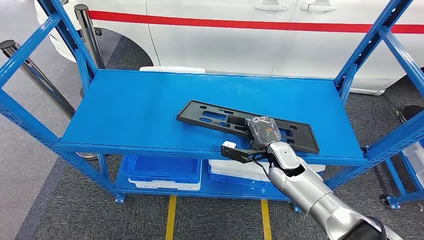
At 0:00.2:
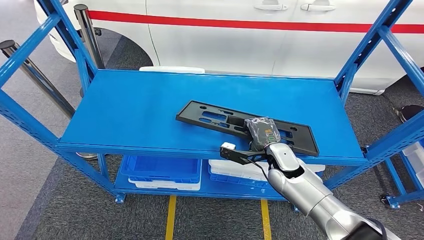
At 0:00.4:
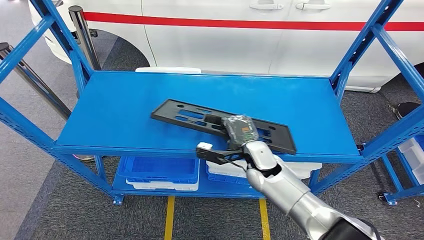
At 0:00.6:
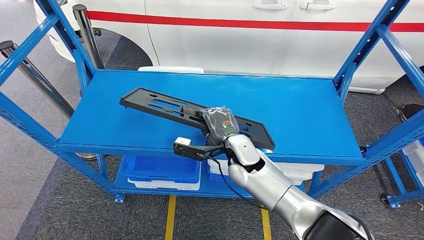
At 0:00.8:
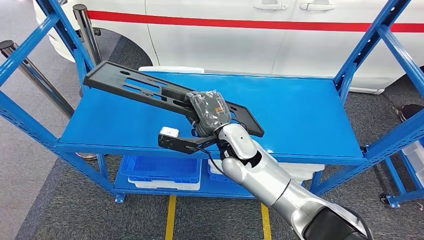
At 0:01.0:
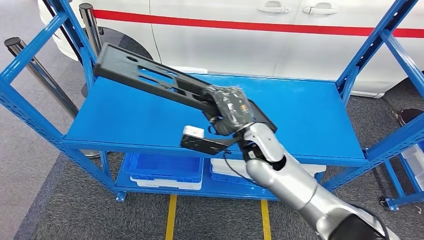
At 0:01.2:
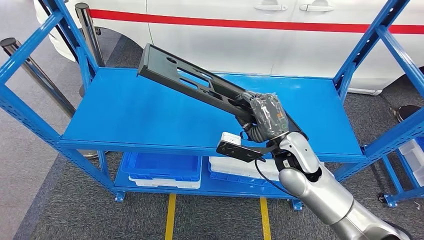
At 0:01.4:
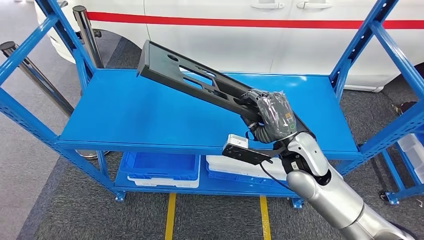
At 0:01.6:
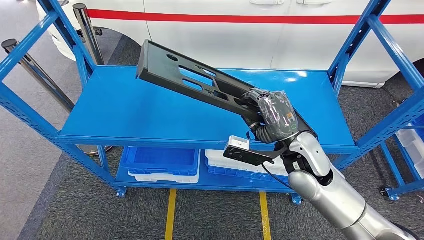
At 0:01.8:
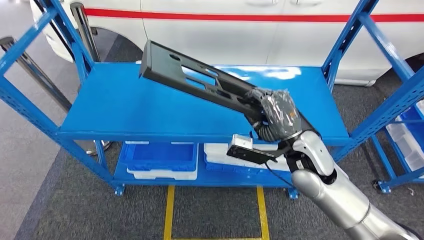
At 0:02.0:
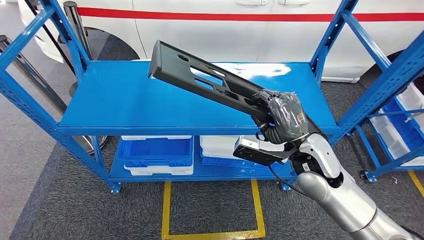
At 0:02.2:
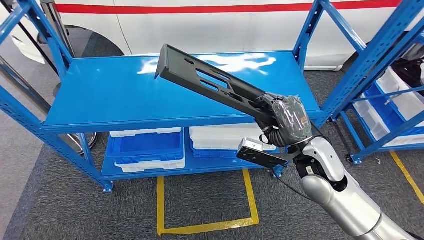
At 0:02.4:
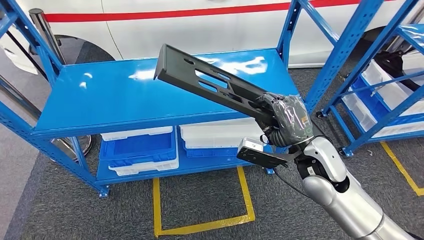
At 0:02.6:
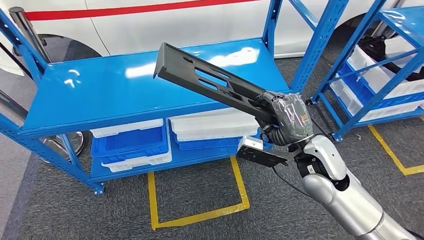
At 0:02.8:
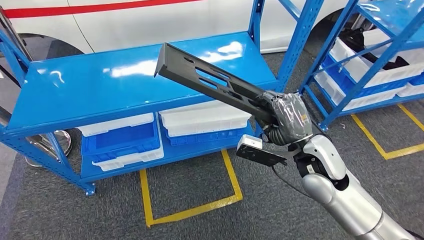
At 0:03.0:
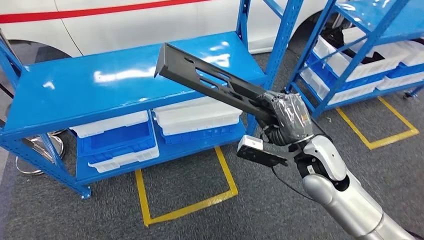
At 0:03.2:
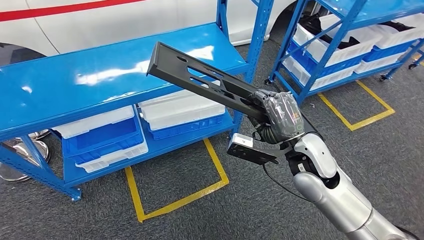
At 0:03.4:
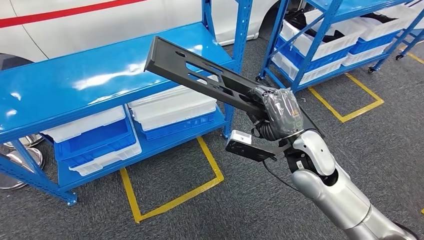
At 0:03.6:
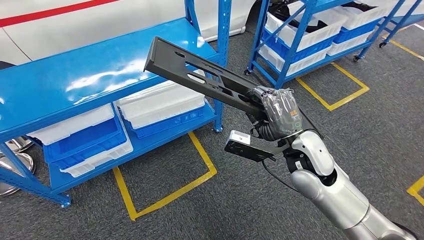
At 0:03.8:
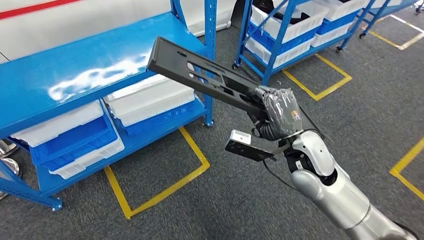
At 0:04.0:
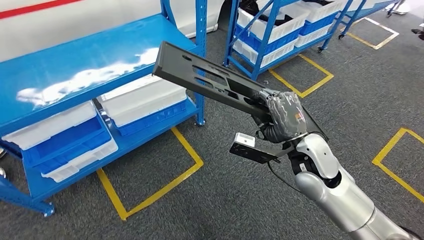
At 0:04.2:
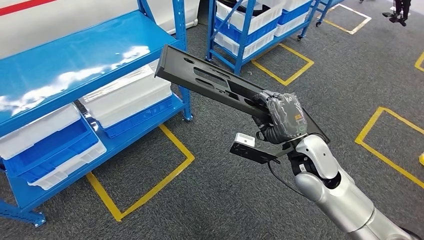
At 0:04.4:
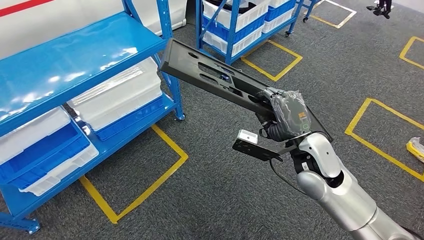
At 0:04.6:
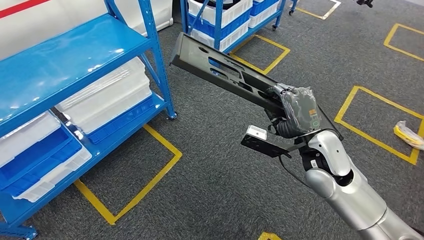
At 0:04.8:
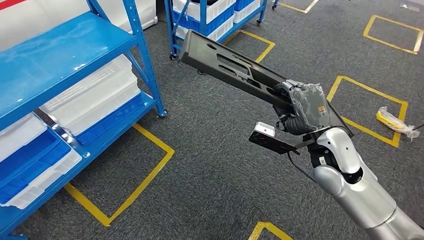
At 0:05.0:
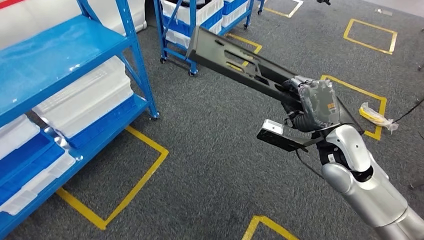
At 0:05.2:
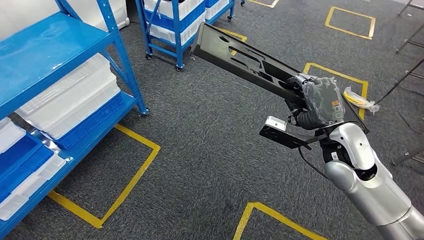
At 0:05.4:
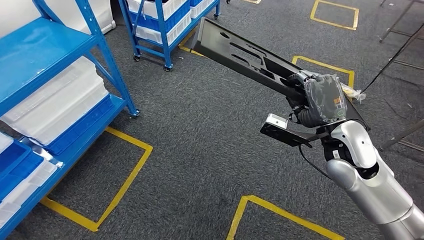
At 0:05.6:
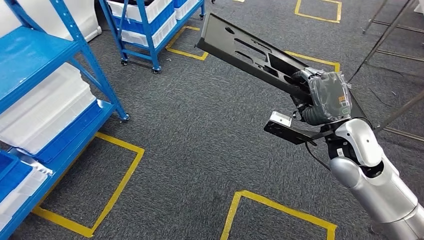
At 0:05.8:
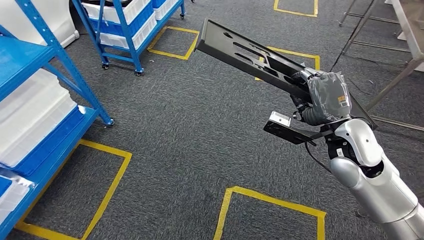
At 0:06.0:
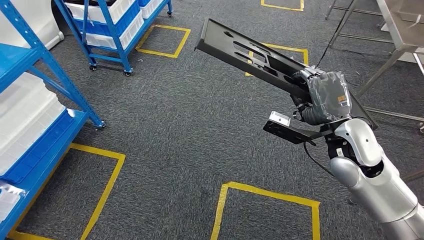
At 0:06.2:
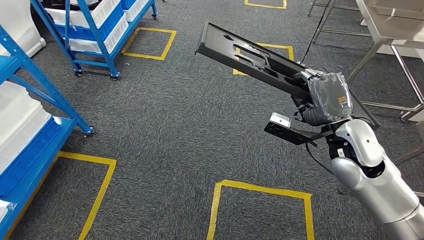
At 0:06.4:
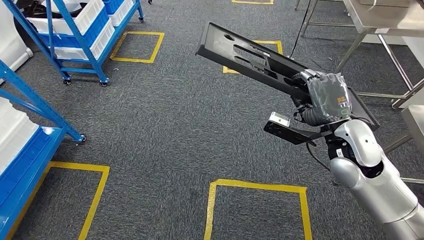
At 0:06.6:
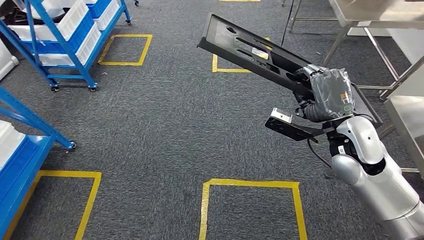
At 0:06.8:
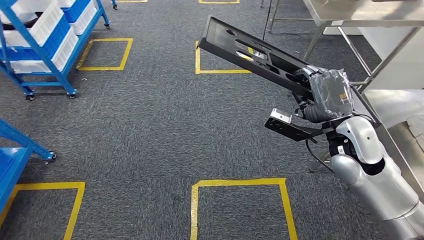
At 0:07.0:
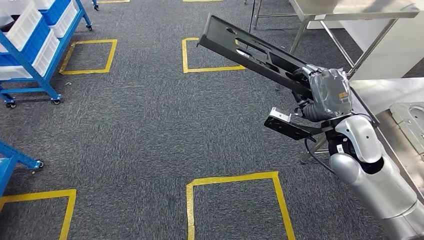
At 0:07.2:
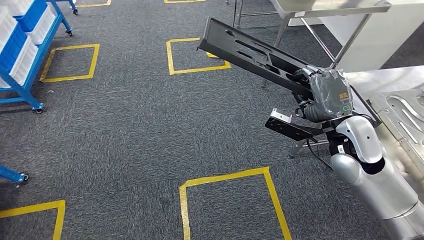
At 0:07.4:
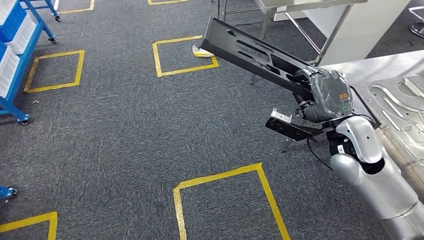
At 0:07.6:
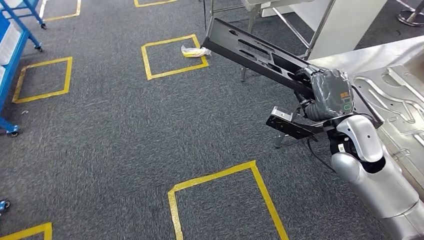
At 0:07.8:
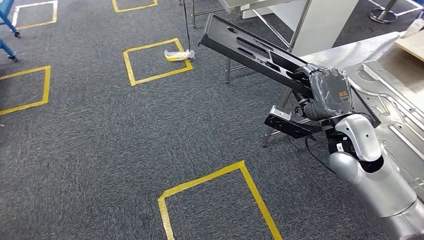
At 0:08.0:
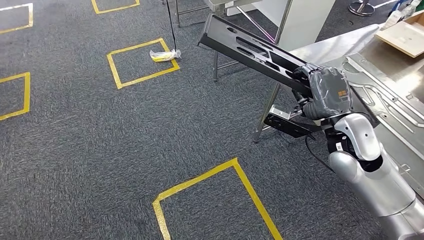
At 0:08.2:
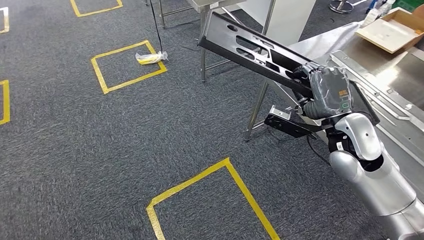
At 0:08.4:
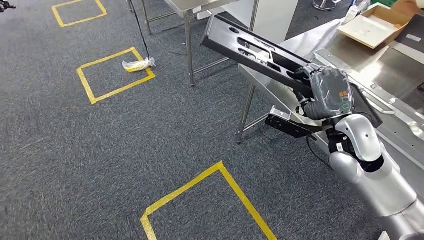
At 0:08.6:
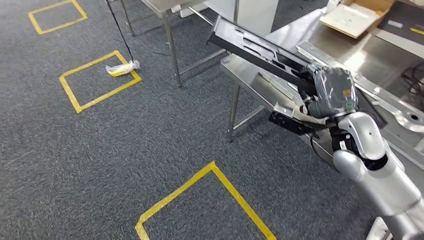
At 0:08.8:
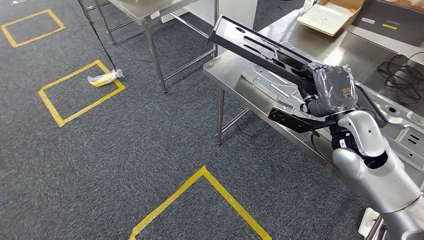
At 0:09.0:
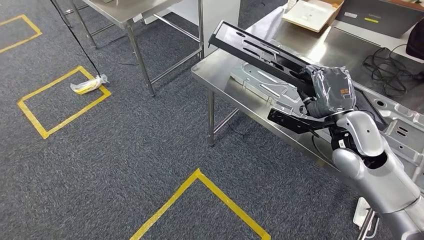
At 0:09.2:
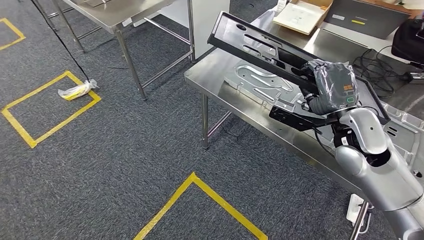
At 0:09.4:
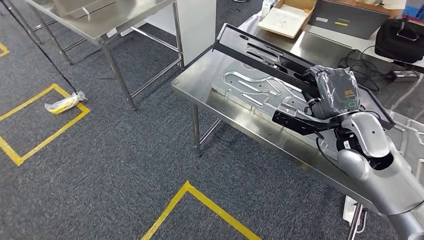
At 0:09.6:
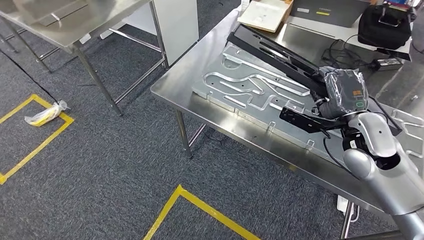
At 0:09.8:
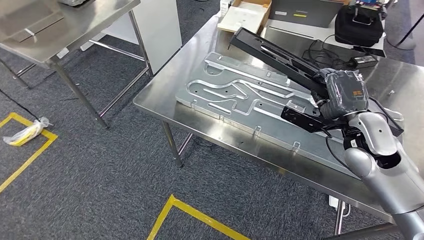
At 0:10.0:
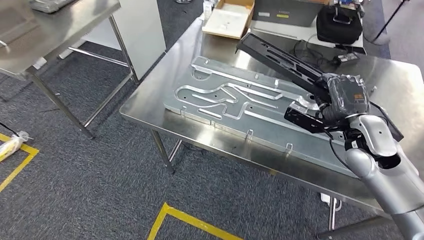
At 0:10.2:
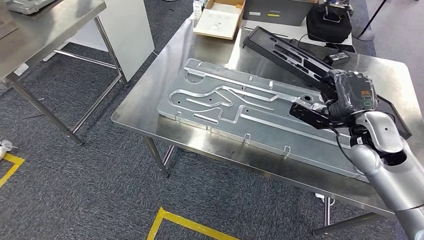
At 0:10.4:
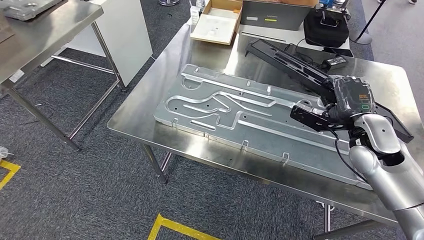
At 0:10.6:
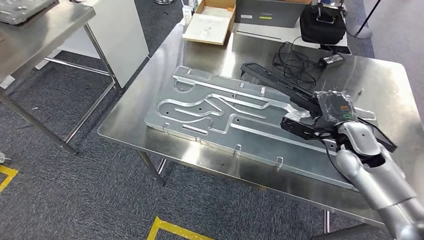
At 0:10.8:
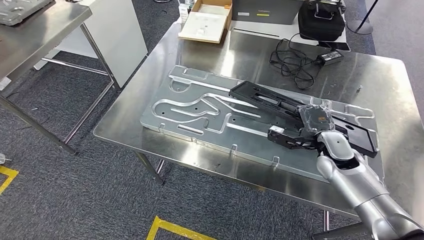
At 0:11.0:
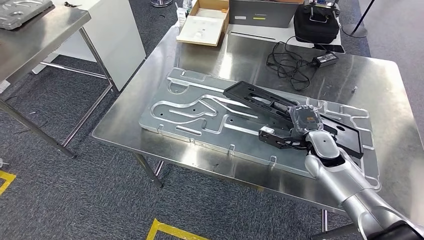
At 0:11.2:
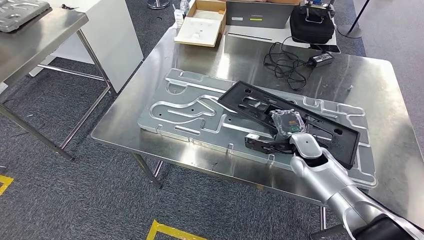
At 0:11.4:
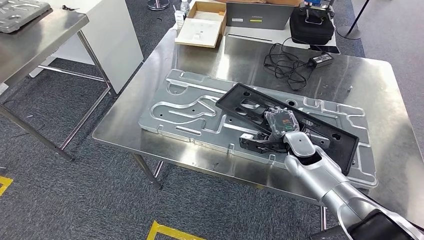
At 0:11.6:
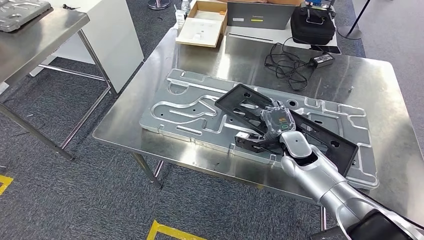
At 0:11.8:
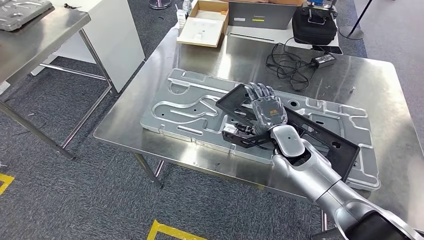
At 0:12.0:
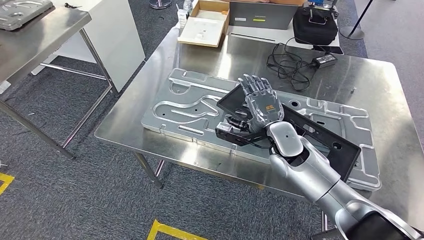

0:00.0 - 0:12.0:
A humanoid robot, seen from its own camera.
Step, 0:00.0 - 0:03.0: Pick up the large material from the shelf.
Step, 0:05.2 - 0:08.8: Insert the large material into the corresponding slot on the workbench.
Step, 0:09.0 - 0:09.8: Move the large material to the workbench.

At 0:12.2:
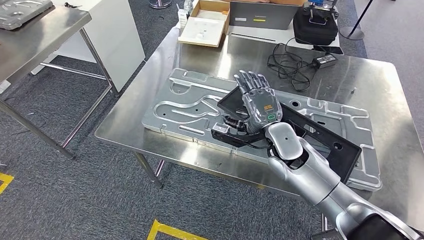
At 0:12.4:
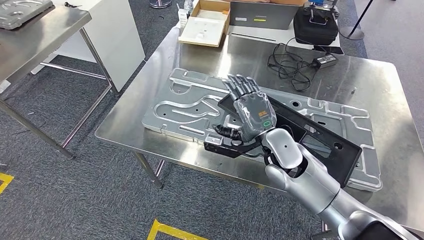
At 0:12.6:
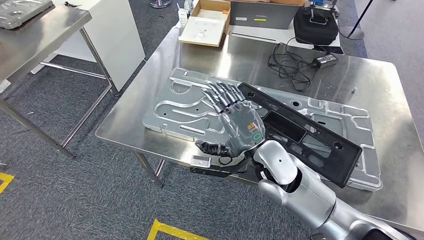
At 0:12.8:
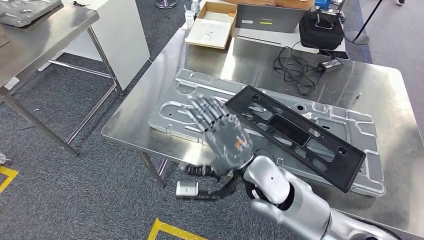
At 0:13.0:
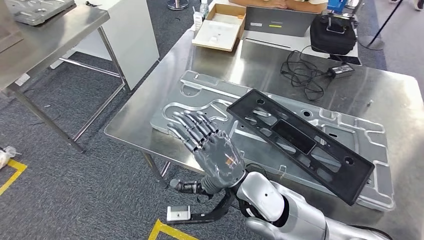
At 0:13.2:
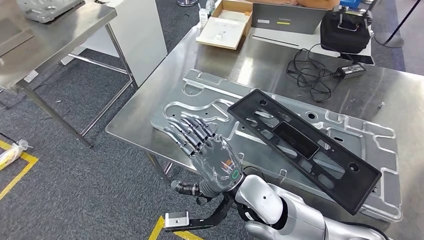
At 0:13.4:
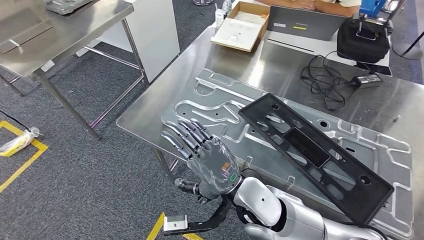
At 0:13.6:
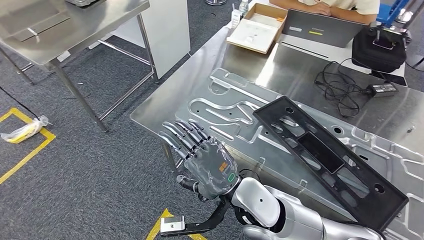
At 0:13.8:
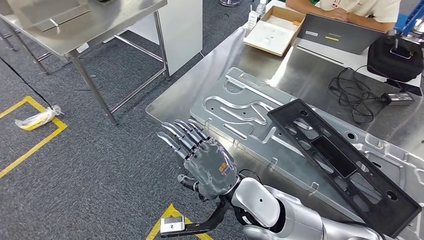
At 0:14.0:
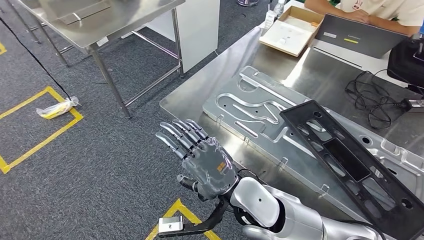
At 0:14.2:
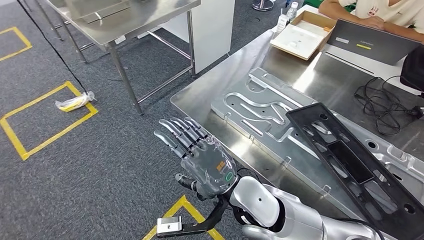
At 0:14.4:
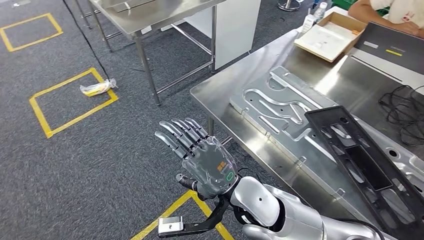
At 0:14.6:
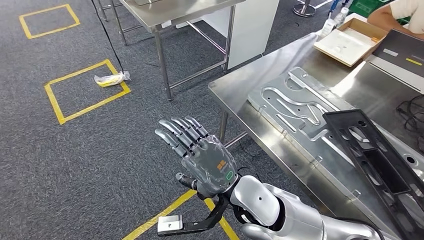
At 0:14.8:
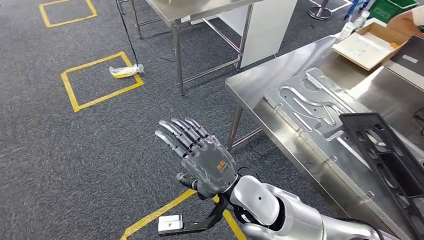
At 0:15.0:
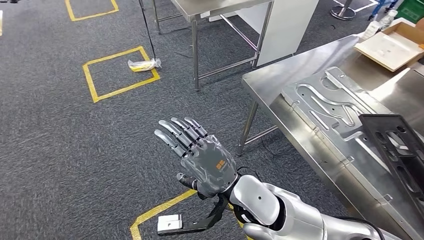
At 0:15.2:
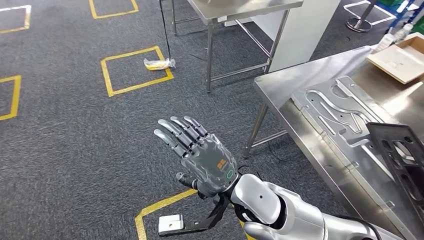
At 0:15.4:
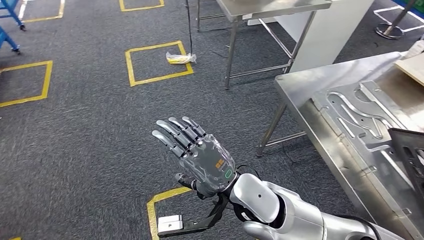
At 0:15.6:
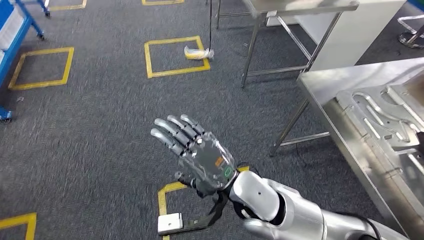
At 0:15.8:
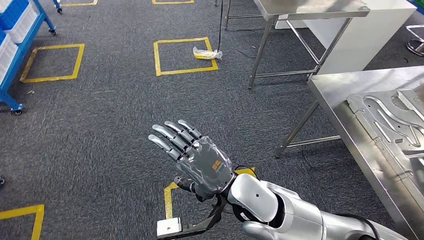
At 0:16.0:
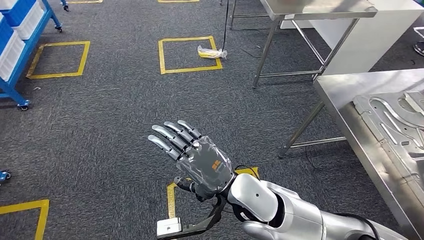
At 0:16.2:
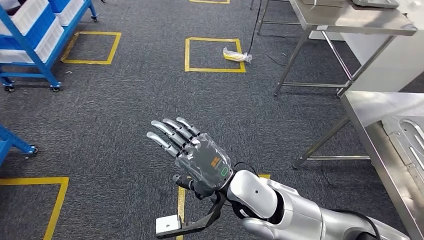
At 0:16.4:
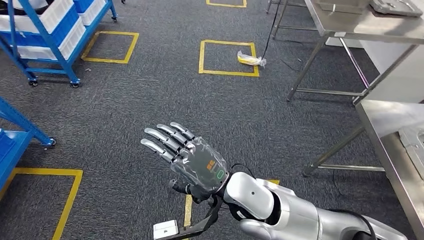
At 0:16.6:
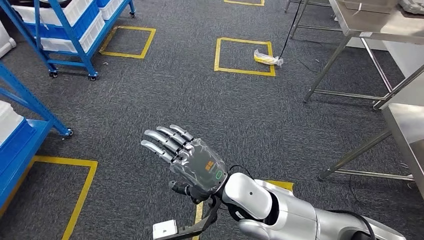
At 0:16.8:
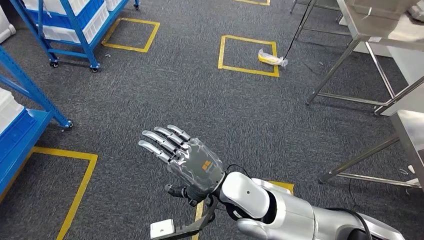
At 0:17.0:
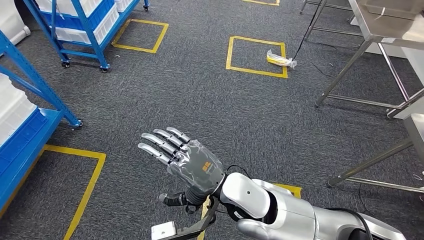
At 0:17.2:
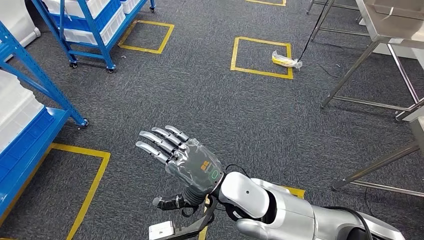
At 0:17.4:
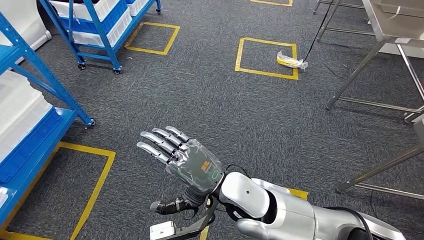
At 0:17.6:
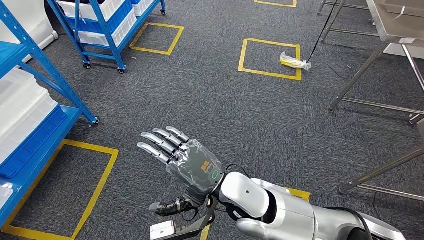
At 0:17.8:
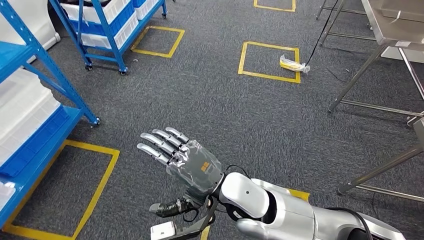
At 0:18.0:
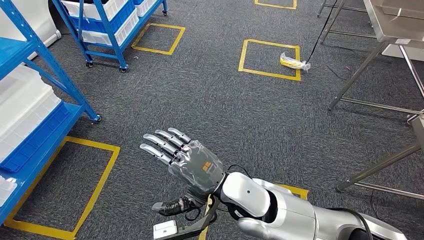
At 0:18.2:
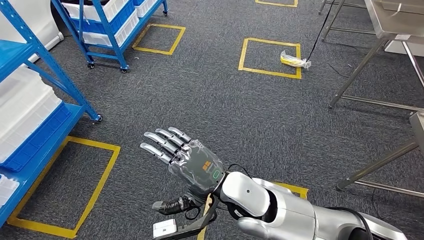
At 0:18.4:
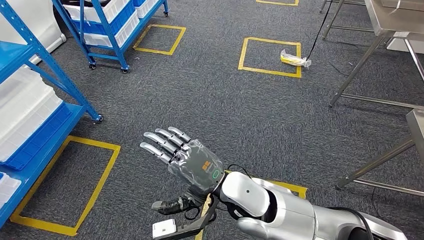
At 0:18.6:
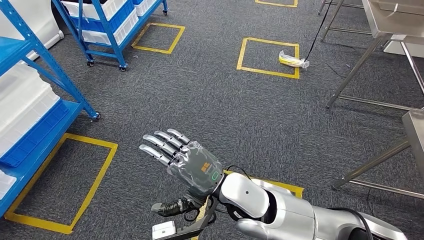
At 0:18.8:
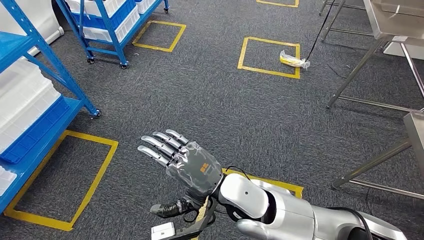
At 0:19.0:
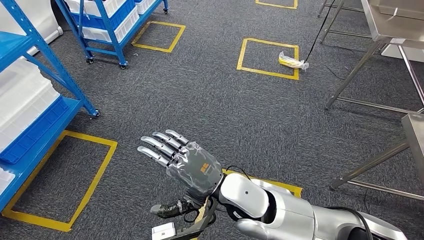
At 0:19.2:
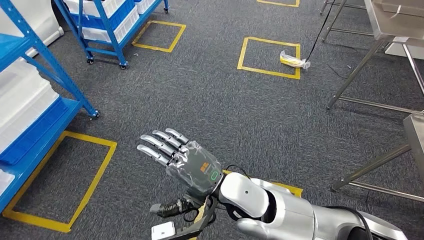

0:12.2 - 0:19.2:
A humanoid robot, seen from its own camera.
0:17.8 - 0:19.2: Neither hand changes place.
